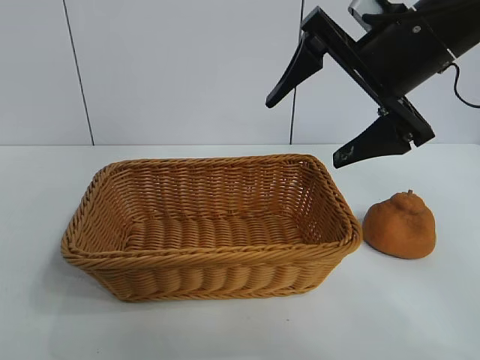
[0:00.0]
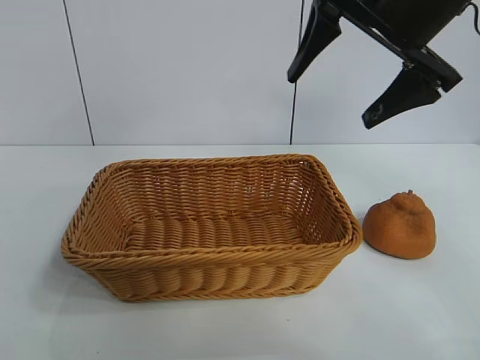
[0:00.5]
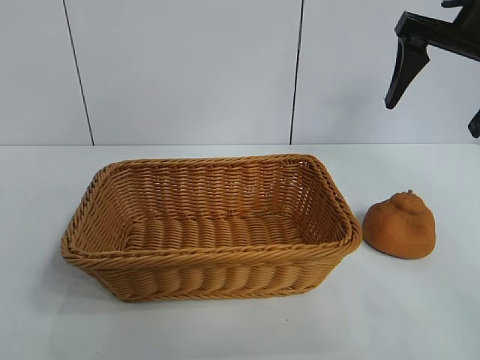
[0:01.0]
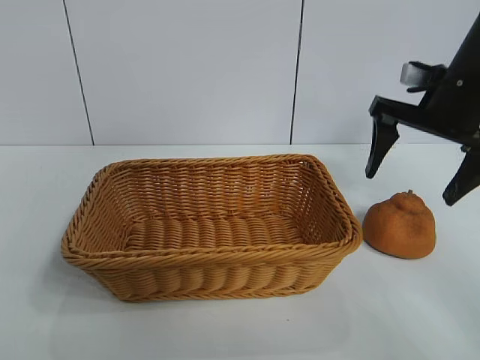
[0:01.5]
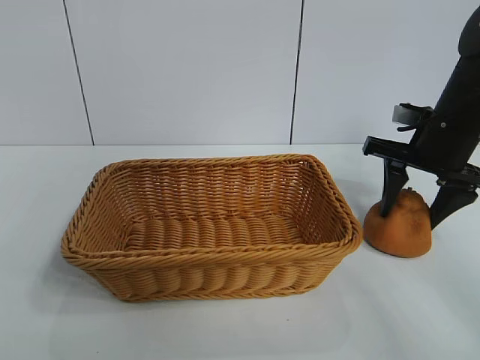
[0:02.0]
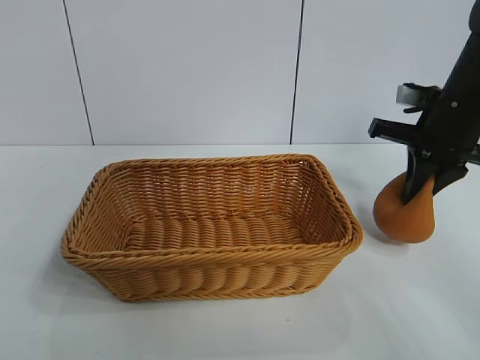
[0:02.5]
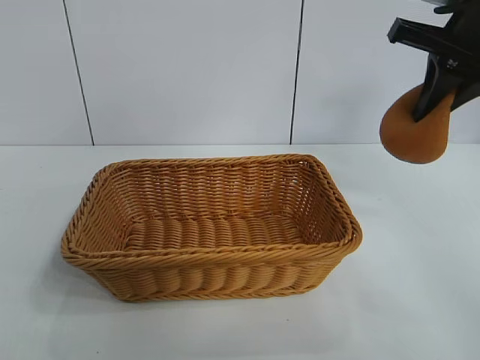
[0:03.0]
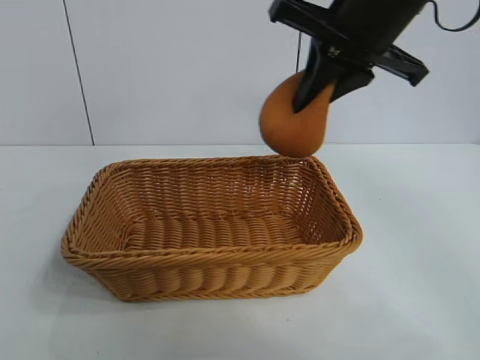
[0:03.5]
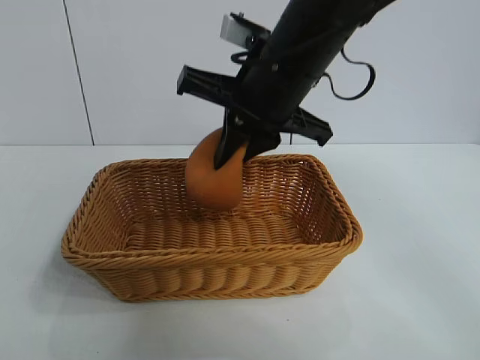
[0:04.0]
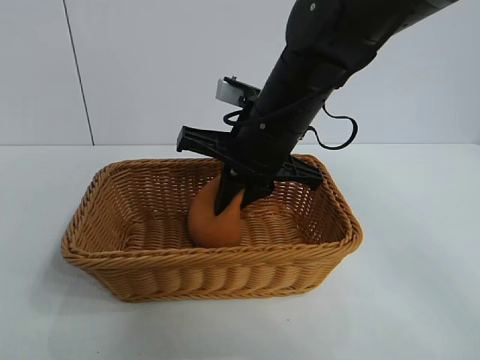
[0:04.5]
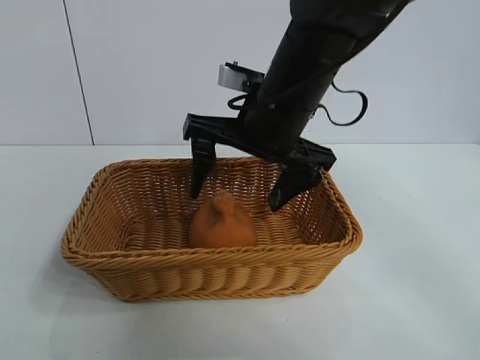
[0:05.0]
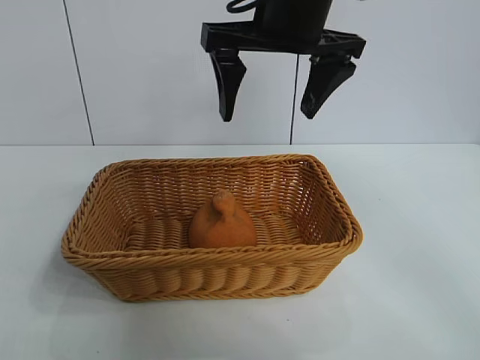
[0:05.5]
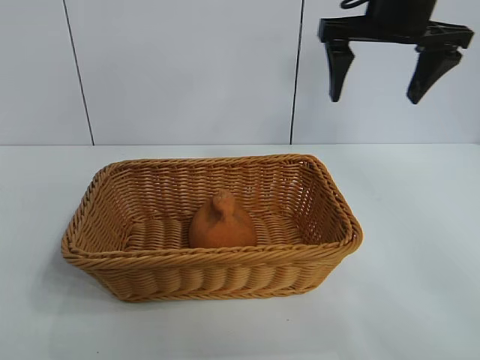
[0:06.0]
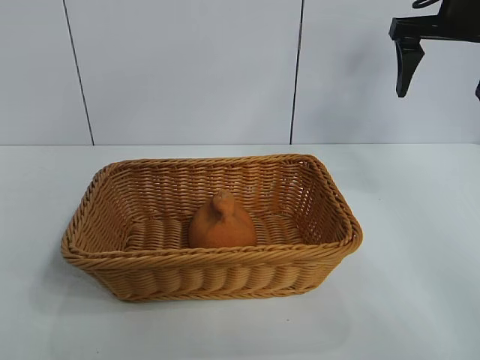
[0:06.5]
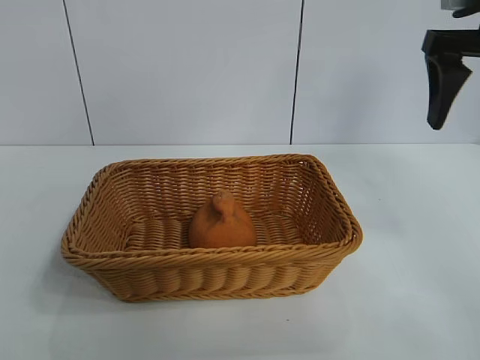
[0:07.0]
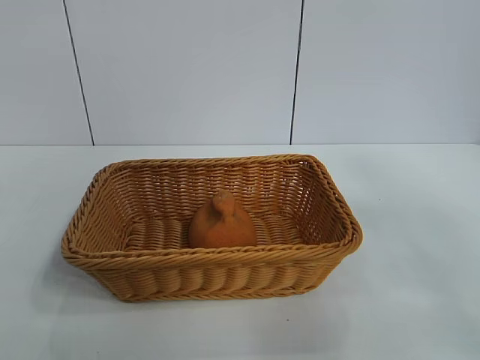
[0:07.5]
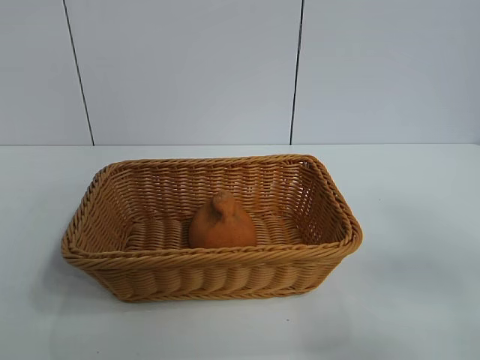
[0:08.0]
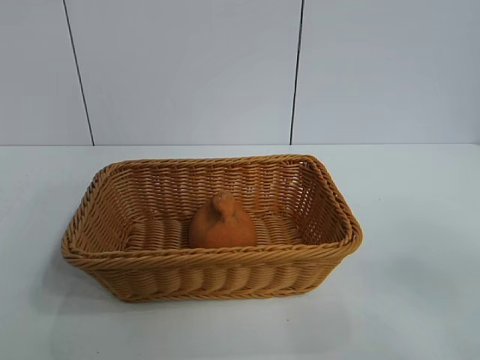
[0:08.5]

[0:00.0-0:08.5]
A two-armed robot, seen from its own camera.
Task of the whole recording: pick up the orange and put it into the basket.
Step, 0:00.0 to 0:02.0: Grasp the orange with right gripper.
Step, 0:02.5 to 0:05.0: Place the orange in the basket with right gripper.
